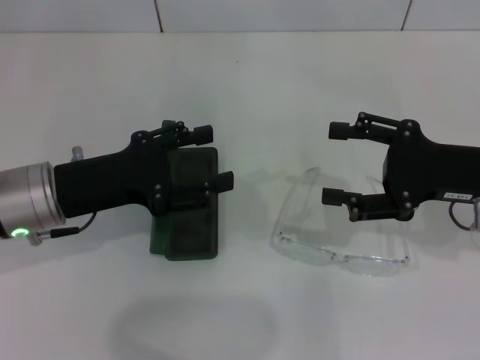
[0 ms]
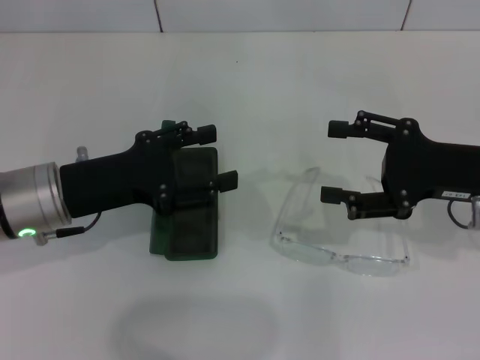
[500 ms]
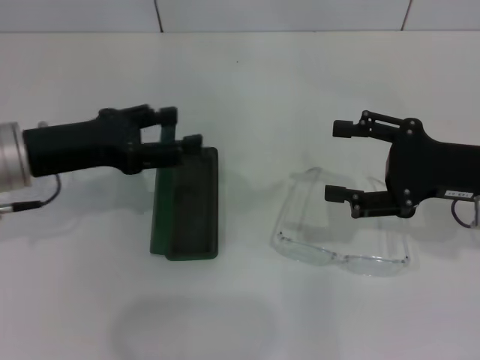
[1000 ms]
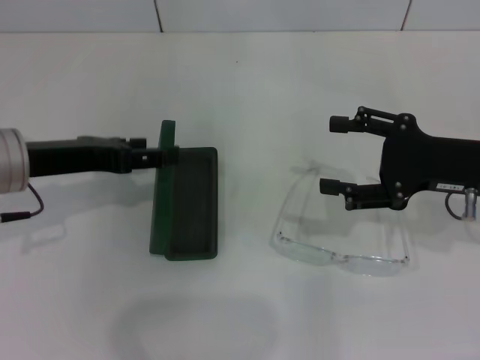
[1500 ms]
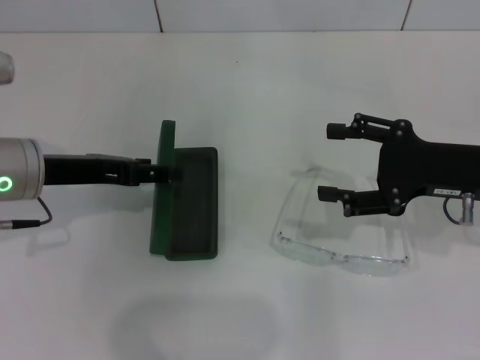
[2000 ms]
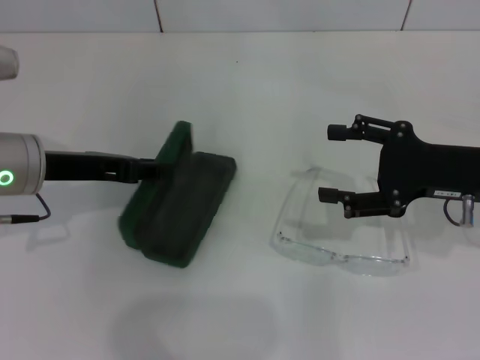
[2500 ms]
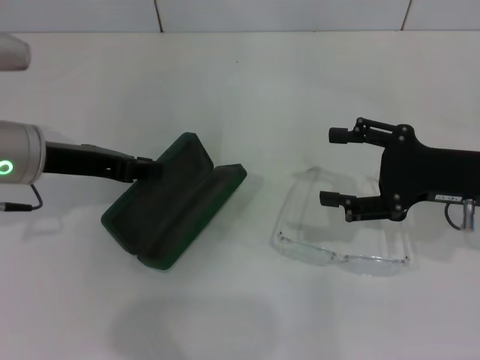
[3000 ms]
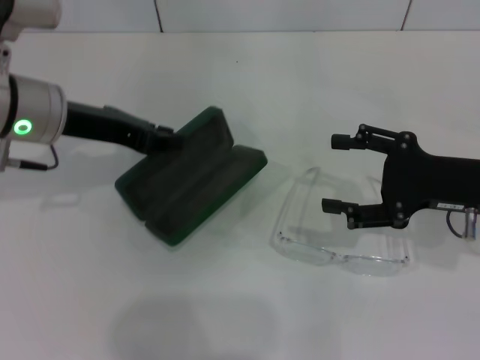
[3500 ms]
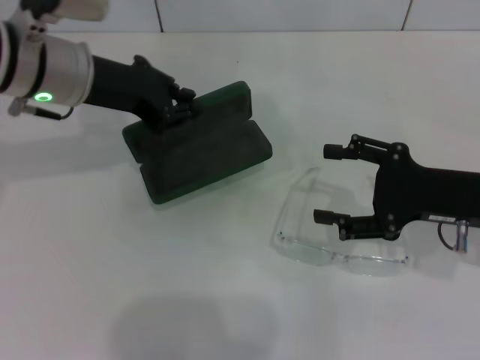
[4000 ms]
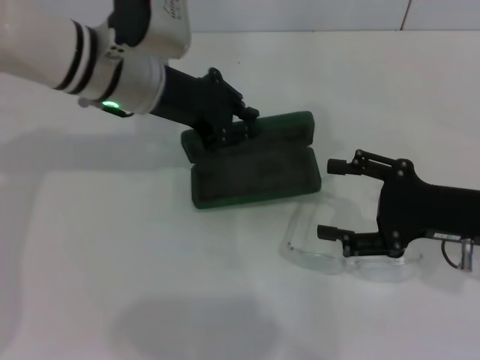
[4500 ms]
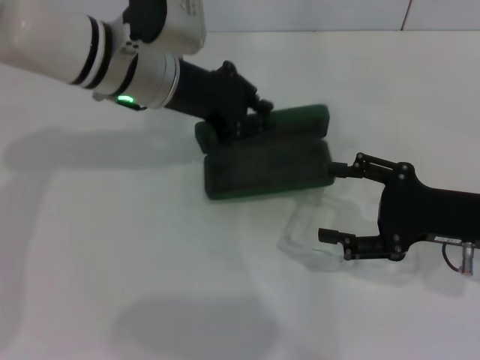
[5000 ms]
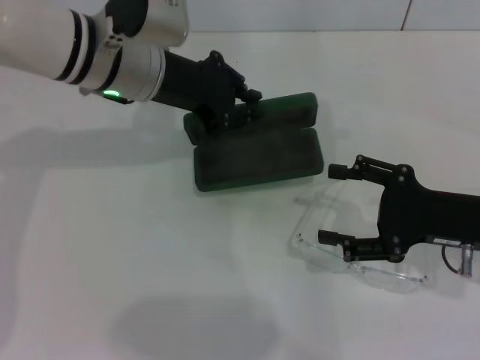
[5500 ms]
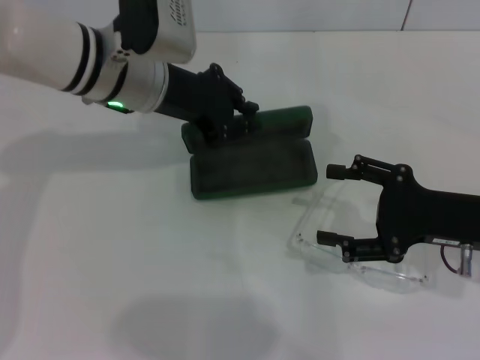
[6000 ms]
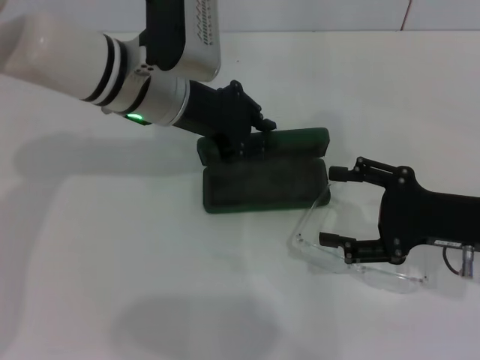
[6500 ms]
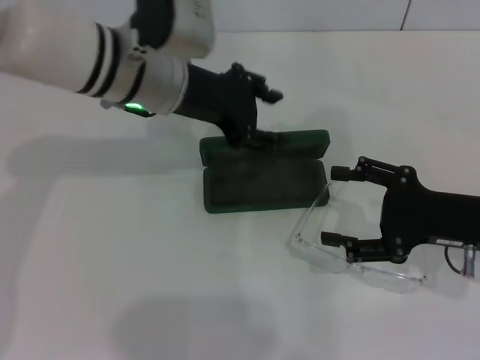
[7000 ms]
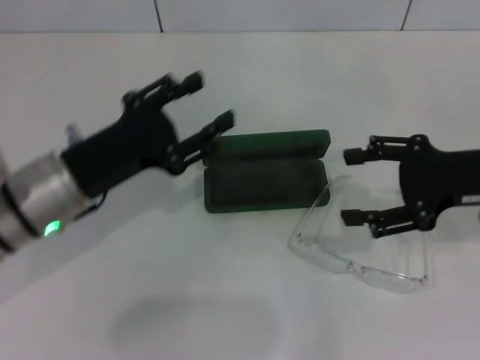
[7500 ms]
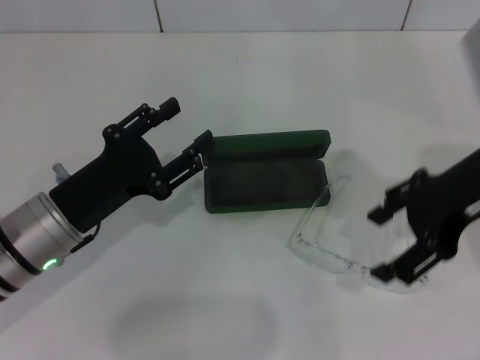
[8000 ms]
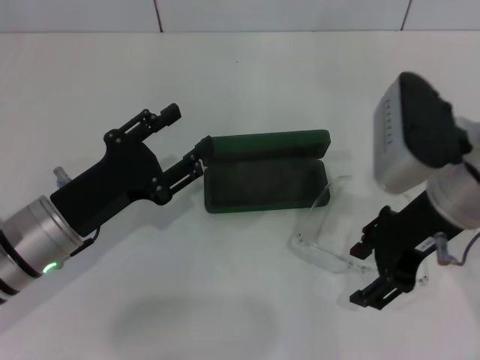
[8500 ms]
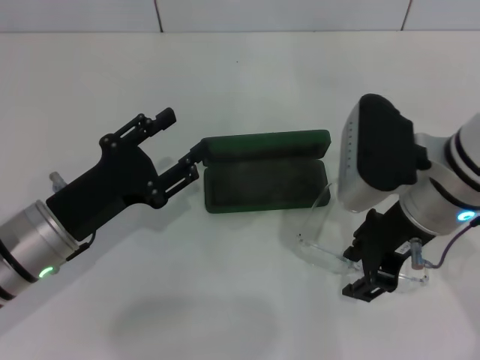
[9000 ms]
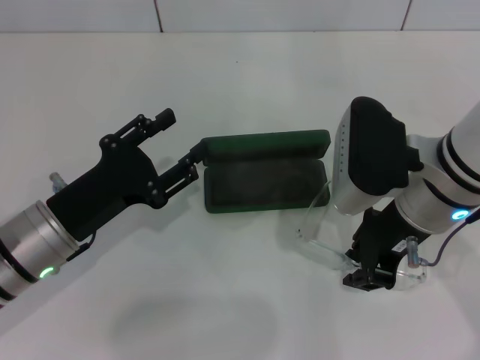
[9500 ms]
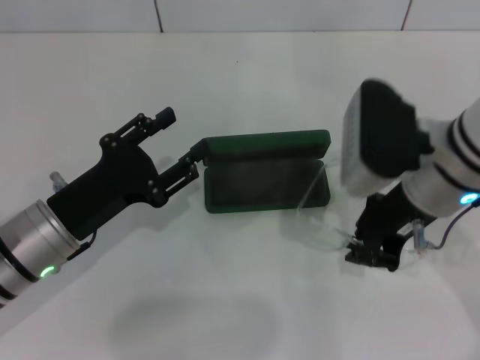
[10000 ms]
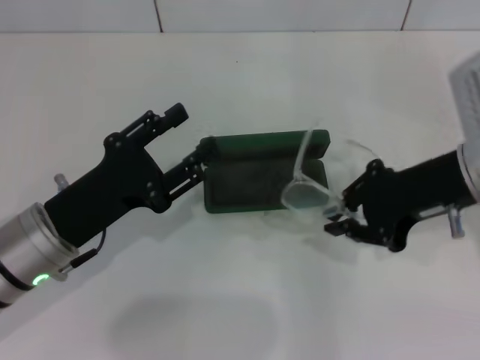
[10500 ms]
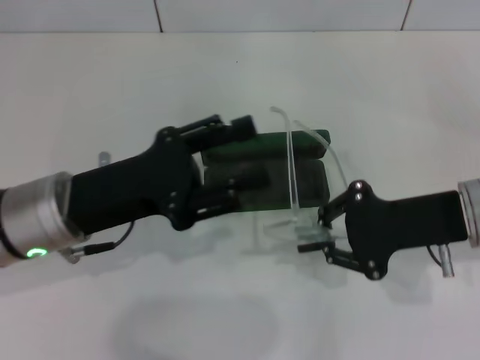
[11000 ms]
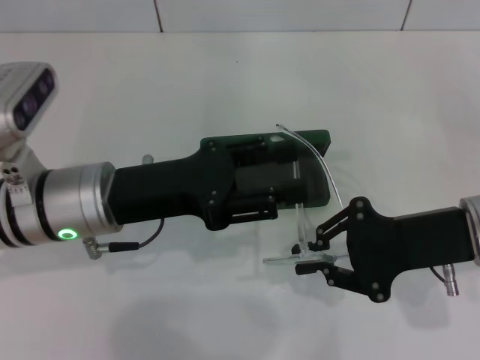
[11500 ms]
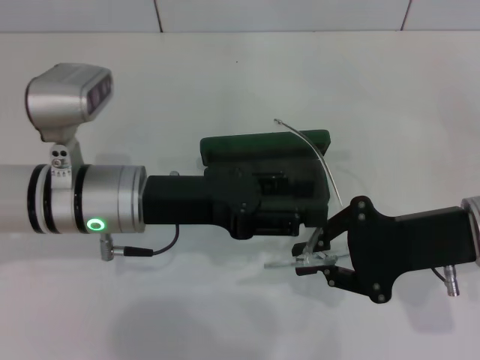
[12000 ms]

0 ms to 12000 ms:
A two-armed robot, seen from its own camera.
Step, 0 ms to 2000 ms: Grab the glasses case with your left hand.
Step, 2500 ms to 6500 ms: Place the glasses case in the center of the table with your left hand.
Step, 7000 ms to 9000 ms: Grab the eyeglass frame with your right hand.
2000 ms to 4000 ms: The left gripper heads forward, upward and to the right, covering approximately 10 cm, and closes its fingers.
4000 ms to 6000 ms: The left gripper moves to the right, approximately 5 cm.
6000 ms to 8000 ms: The right gripper heads upward, covering approximately 15 cm; the left gripper goes some 20 cm backward, downward and to the left, and opens its fingers.
8000 ms to 10000 ms: The right gripper is displaced to the left by roughly 5 cm, and closes up.
10000 ms to 12000 ms: The left gripper shifts about 10 cm to the right and upward. Meanwhile the right gripper travels to the right by roughly 5 cm.

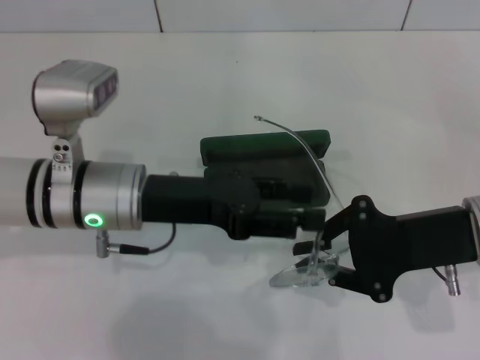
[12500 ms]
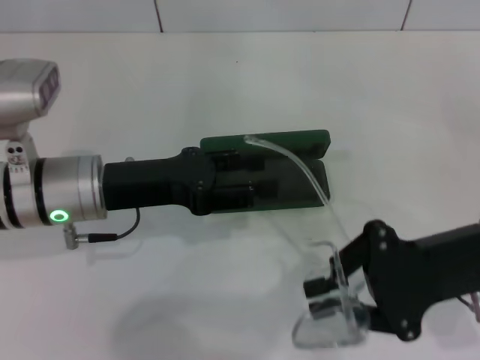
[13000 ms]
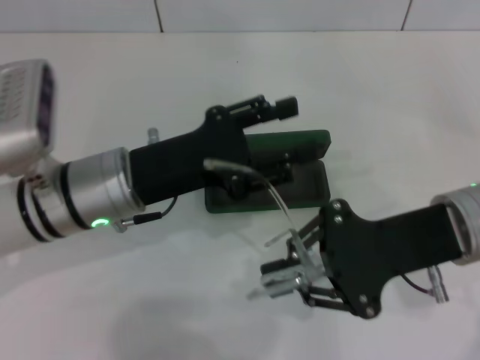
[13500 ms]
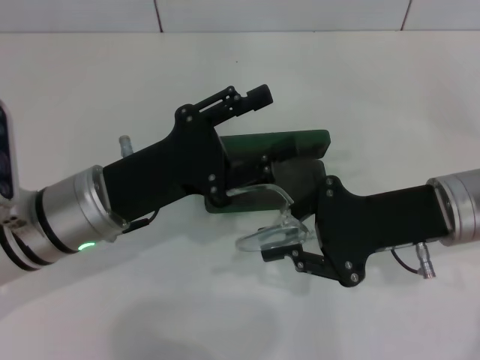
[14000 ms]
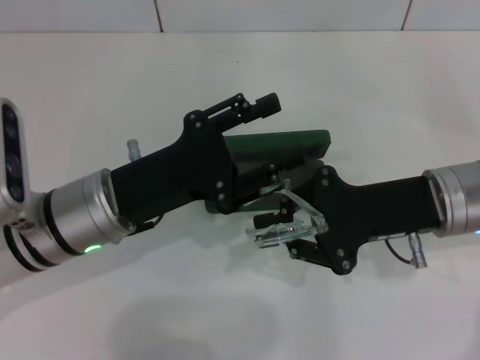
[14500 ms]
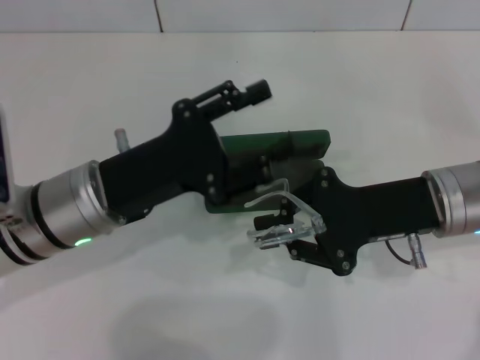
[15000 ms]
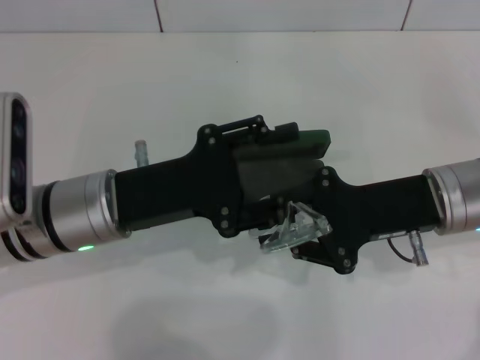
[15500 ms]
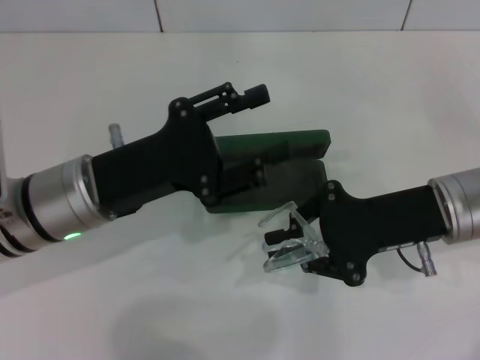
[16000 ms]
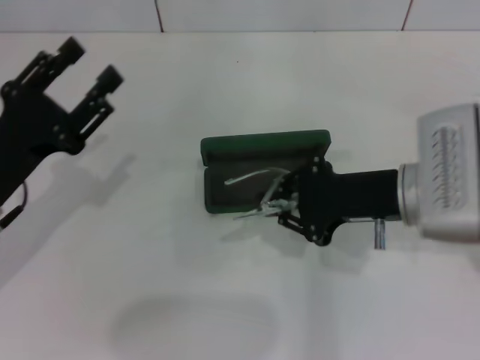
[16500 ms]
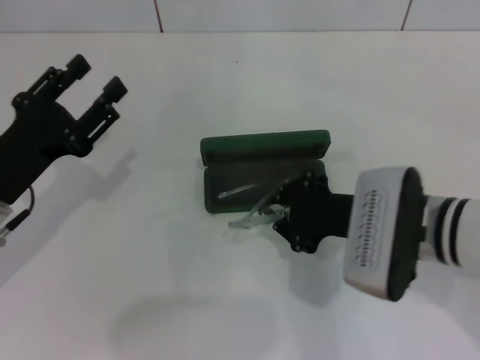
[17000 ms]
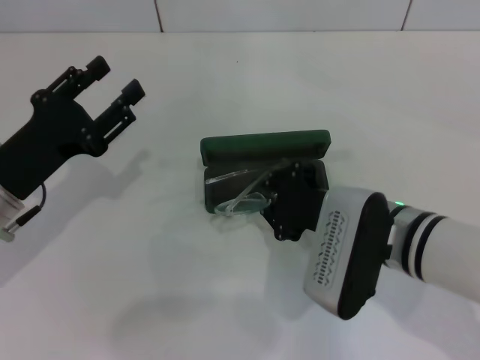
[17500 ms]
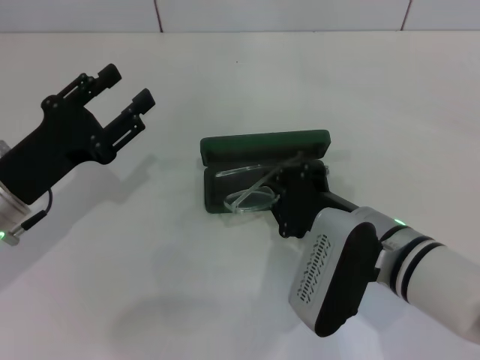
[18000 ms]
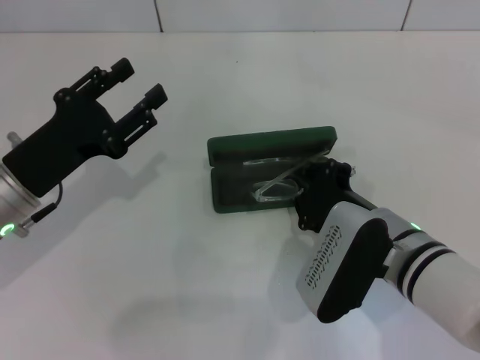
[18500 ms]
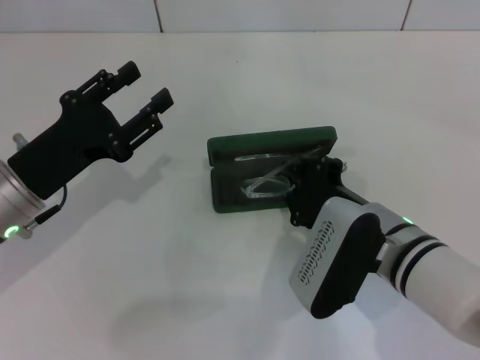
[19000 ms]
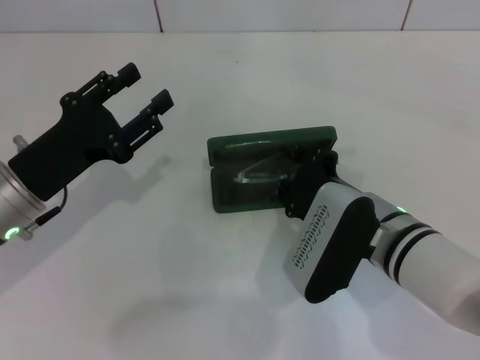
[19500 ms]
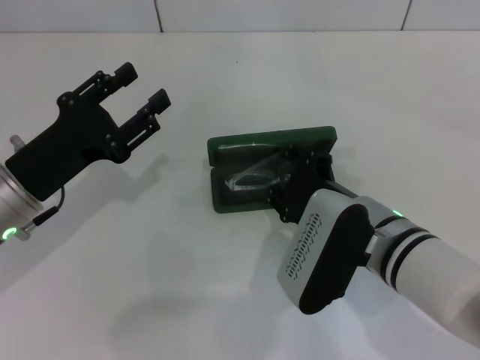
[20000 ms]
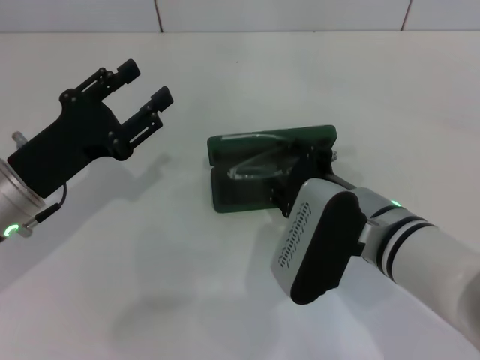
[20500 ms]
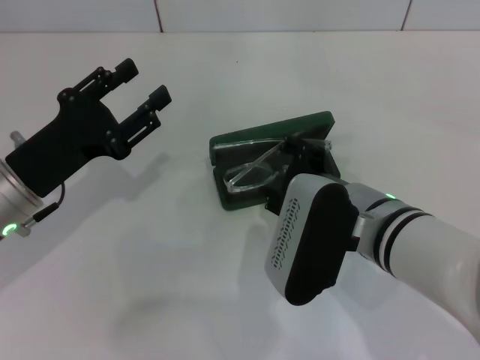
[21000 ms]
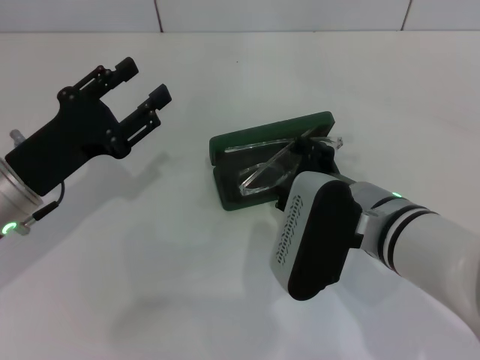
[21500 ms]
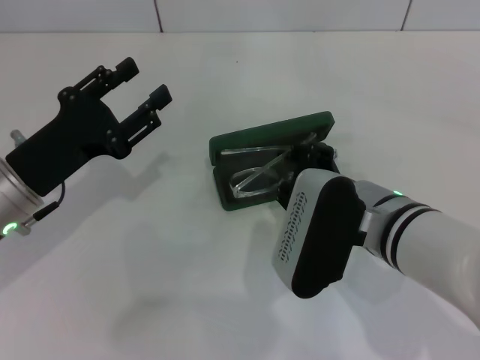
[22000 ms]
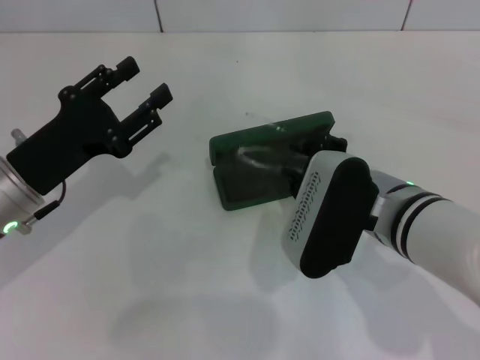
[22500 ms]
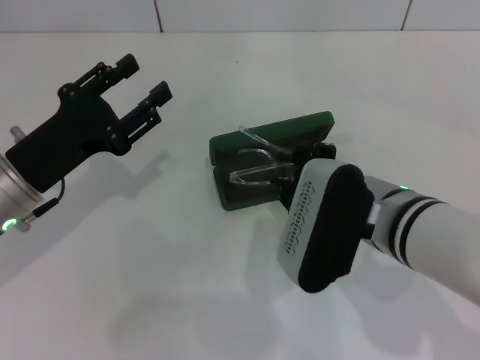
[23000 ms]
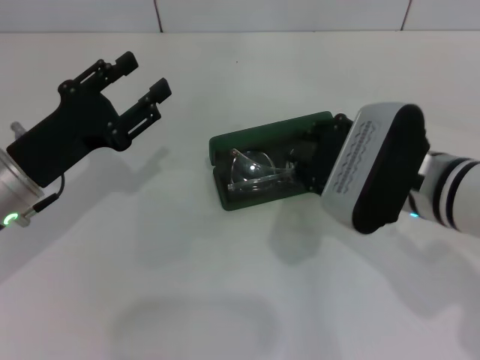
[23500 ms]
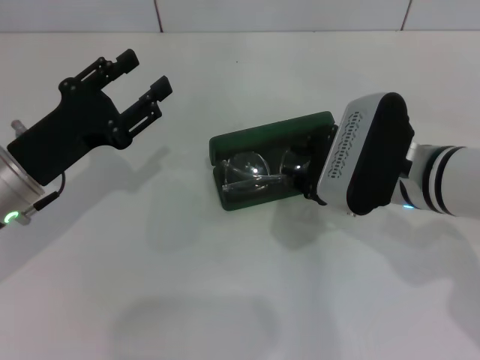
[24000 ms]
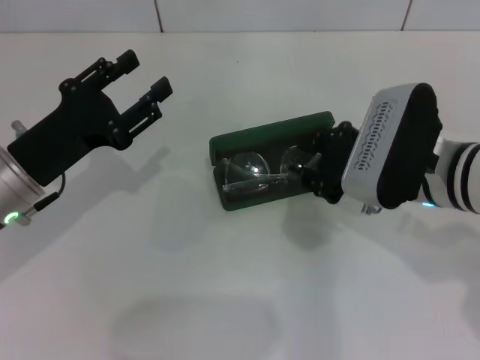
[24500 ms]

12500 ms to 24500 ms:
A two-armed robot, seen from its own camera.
Step, 12500 ms to 15500 ms: Fold the frame with your left hand.
14500 ms to 16500 ms: The left gripper is displaced to the left by about 10 cm.
16500 ms to 18500 ms: The right gripper goes approximately 5 cm downward.
18500 ms to 20500 ms: The right gripper opens up.
20500 ms to 22500 ms: The grippers make only small movements.
22500 ms to 24500 ms: The right gripper changes place by approximately 5 cm.

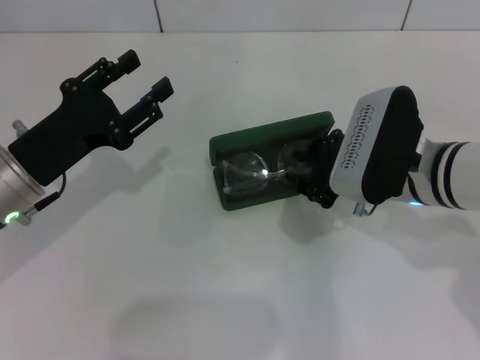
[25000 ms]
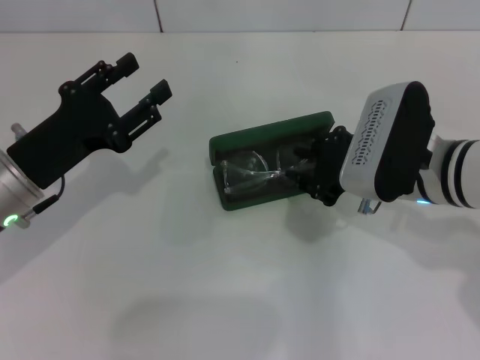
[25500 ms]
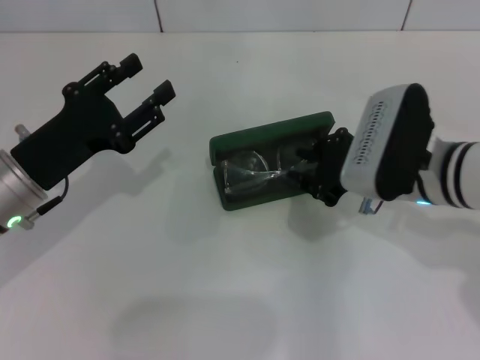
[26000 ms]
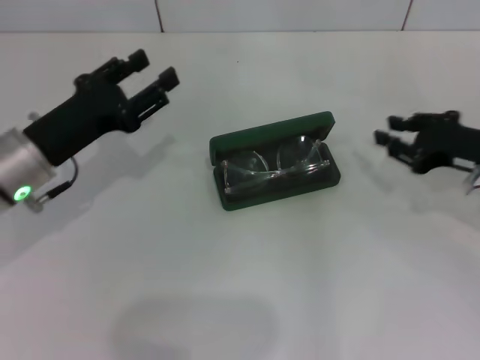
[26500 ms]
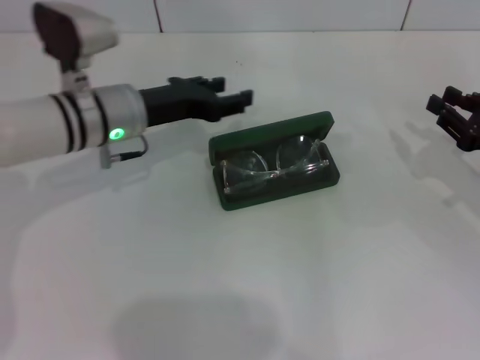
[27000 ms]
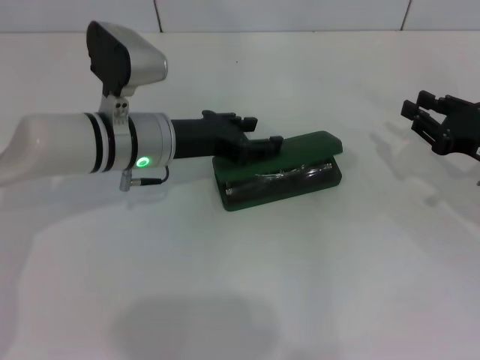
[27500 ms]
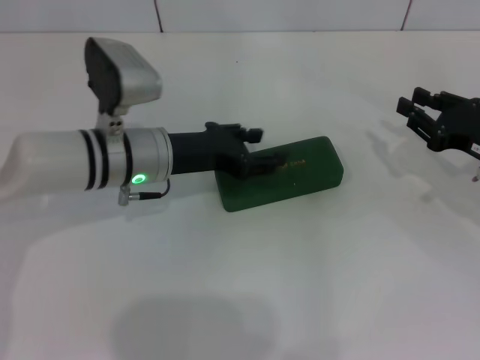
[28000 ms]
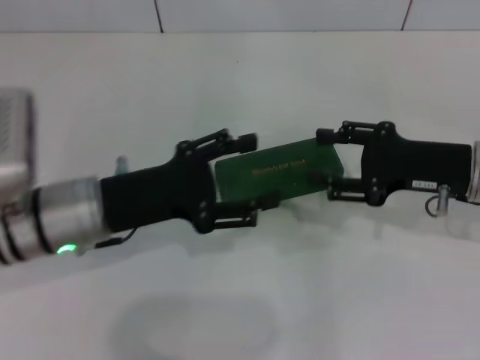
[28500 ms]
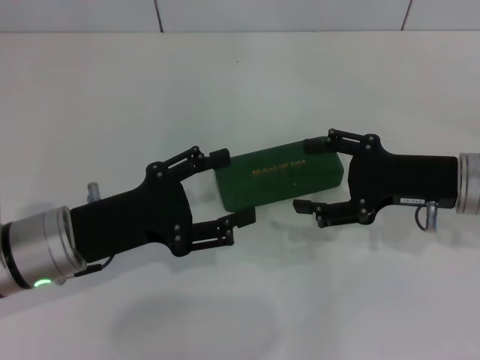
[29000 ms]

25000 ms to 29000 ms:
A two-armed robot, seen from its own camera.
Step, 26500 ms to 27500 ms: Close the glasses case with your left hand.
25000 ms to 27000 ms: The right gripper heads to the right, covering some 20 cm. The left gripper heads forward and to the right, covering some 15 cm.
27000 ms to 29000 ms: The left gripper goes approximately 15 cm backward; the right gripper goes about 10 cm to the left, and opens.
